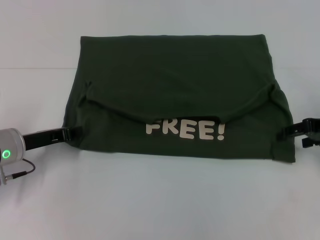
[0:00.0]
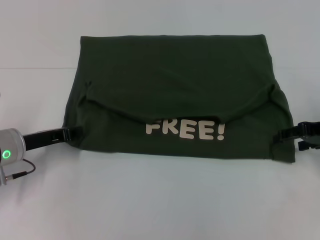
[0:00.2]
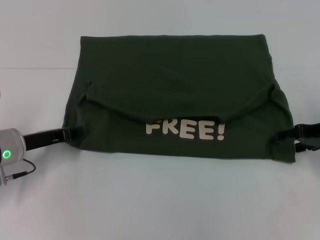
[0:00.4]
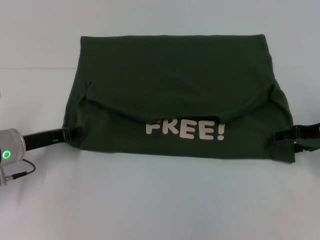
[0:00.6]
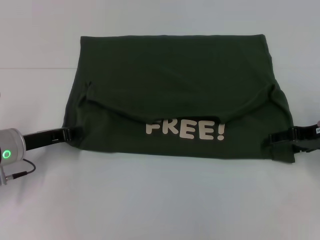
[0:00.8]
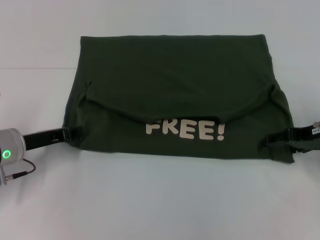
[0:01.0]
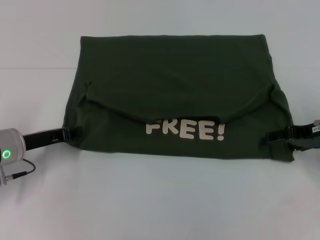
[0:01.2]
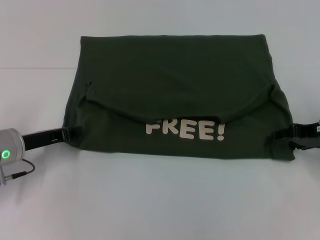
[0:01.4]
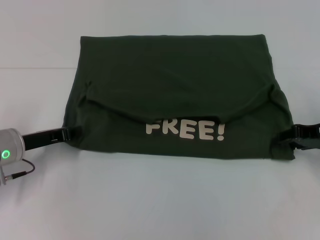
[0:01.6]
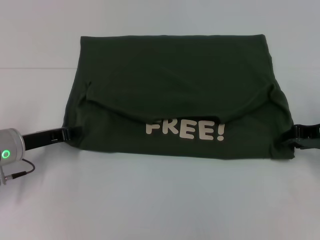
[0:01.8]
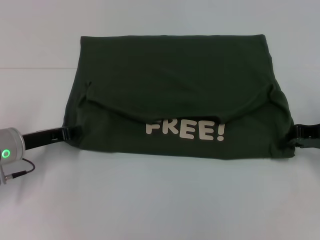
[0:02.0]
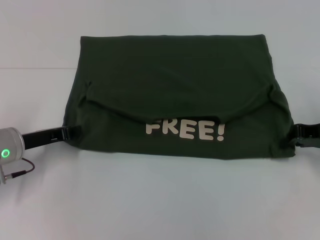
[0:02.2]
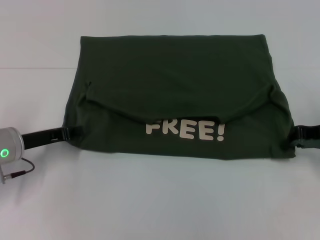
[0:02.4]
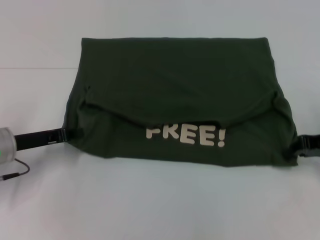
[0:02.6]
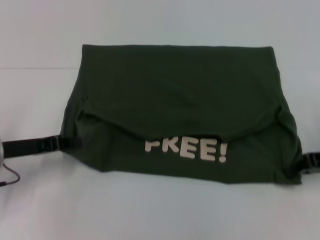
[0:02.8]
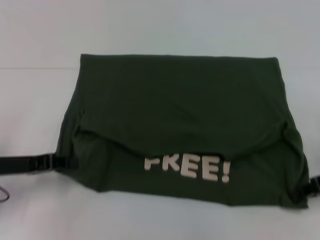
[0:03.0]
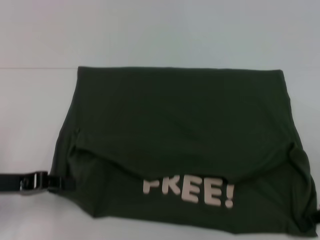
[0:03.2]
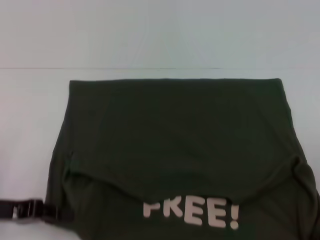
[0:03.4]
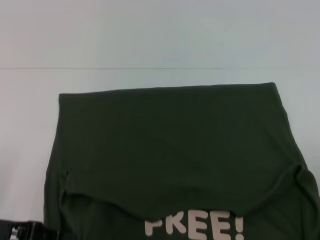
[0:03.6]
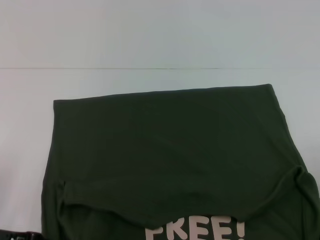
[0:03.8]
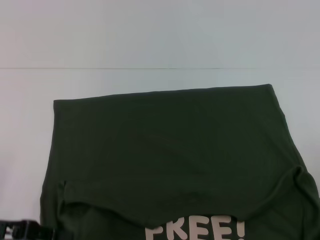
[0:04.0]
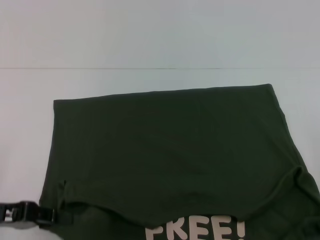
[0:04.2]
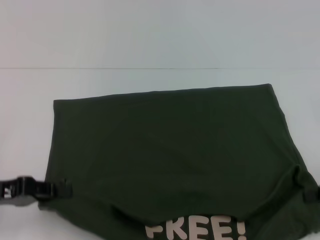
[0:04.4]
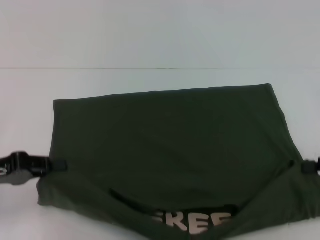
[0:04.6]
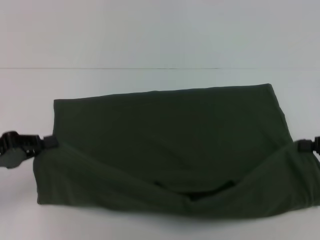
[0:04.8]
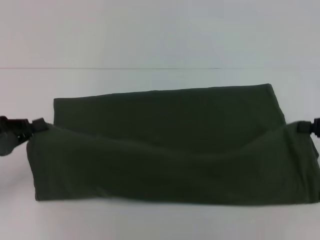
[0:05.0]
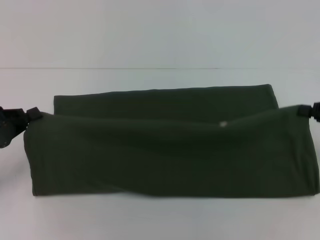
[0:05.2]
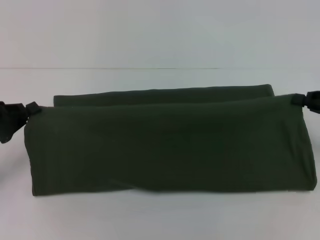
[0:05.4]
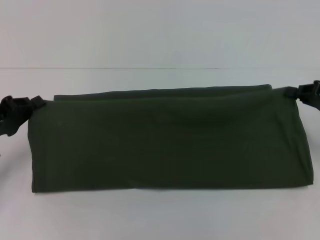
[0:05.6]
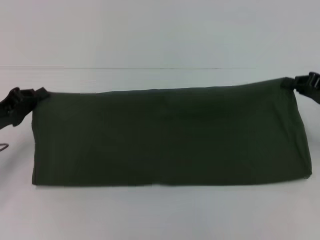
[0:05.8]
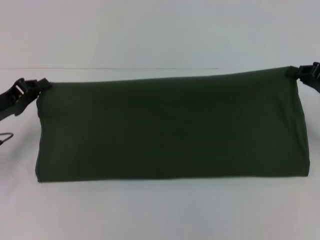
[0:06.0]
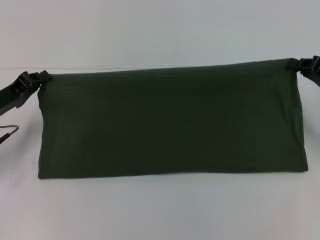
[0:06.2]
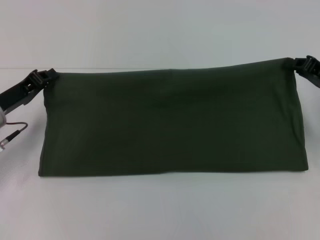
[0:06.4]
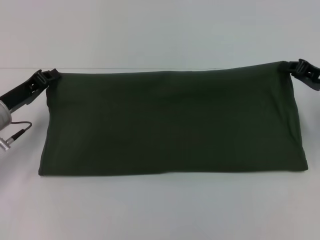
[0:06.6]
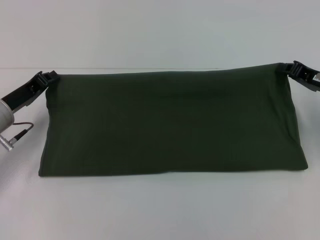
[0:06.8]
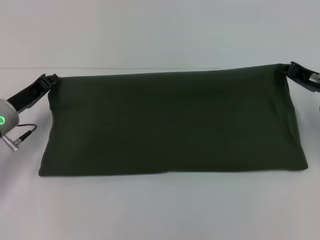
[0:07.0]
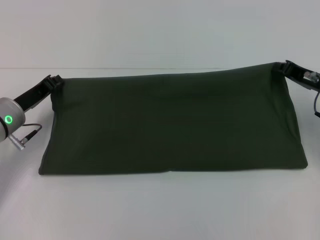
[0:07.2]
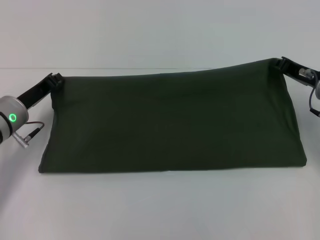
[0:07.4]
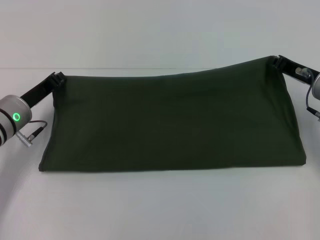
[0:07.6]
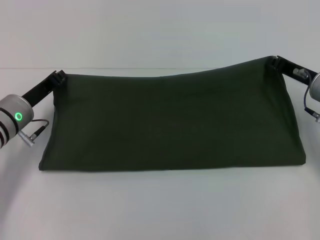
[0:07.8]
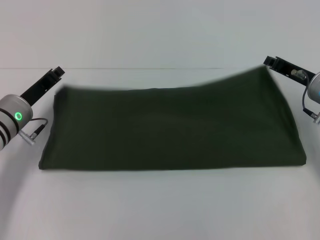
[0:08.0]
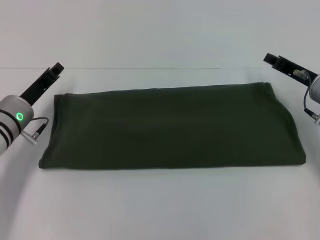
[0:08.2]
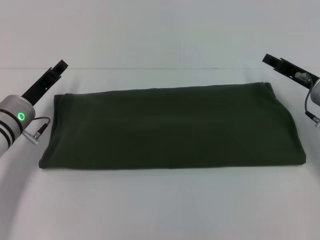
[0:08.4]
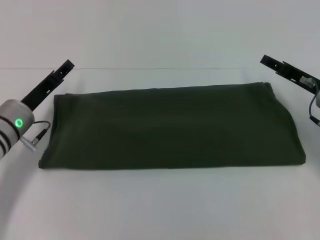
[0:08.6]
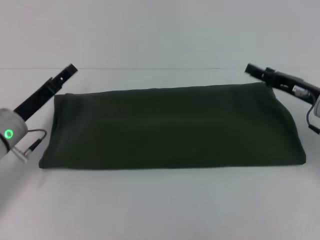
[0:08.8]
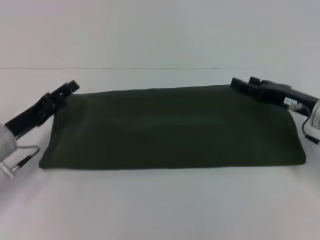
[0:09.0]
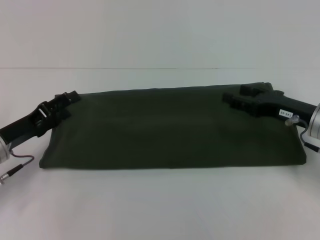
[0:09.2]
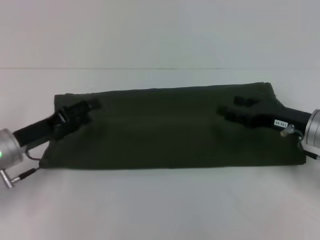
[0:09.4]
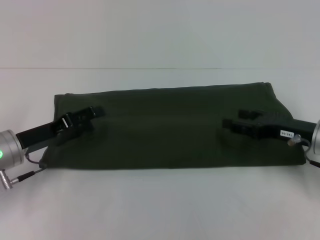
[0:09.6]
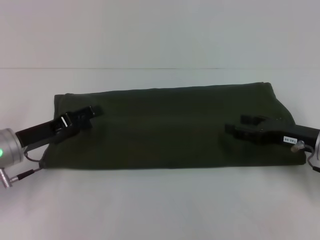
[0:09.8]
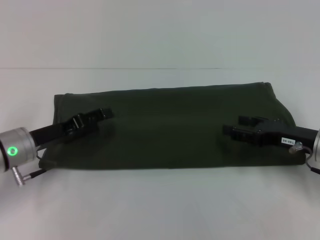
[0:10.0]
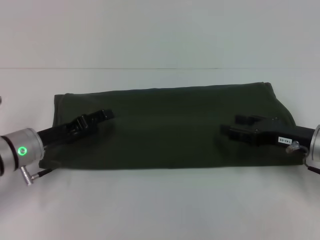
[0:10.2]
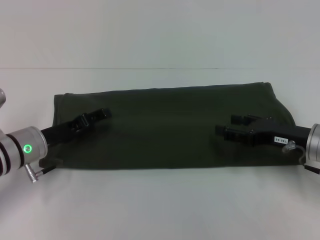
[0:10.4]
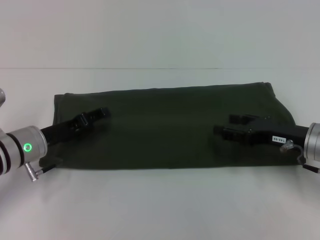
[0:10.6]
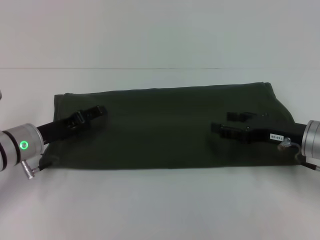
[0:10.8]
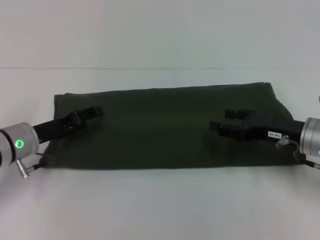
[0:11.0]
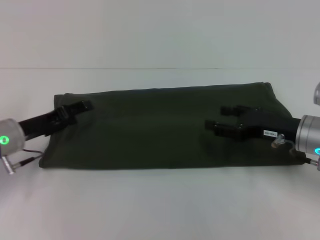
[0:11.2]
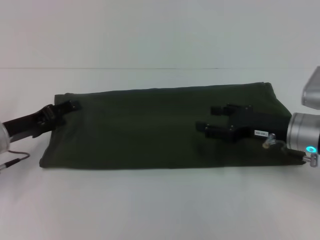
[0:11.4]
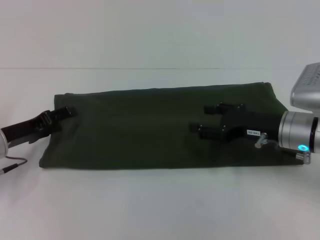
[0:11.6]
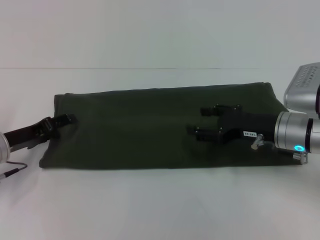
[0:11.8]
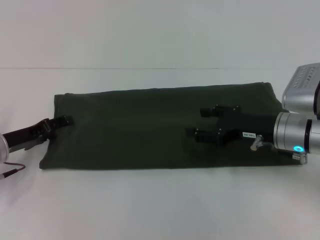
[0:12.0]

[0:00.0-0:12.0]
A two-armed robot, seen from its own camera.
Step, 0:00.0 to 0:03.8: Pull the clothes with your left hand.
Step, 0:00.0 to 0:03.8: Pull the clothes with your right hand.
Step, 0:04.0 to 0:08.0: Fold the clothes with your right hand.
0:01.6 to 0:03.0: The left gripper moves about 5 cm. Meanwhile the right gripper is displaced backward by about 5 cm, and closes its fingers.
0:03.0 to 0:04.4: The right gripper shifts by approximately 5 cm. The left gripper heads backward, covering about 5 cm.
0:04.4 to 0:06.0: The grippers both shift forward by approximately 10 cm.
0:06.0 to 0:07.6: The right gripper goes about 5 cm to the left. The left gripper goes roughly 5 cm to the right.
0:07.6 to 0:09.0: The left gripper ends up about 5 cm from where it was, and opens. Meanwhile the right gripper opens its fingers.
0:09.0 to 0:10.4: The grippers move only a little.
0:10.4 to 0:12.0: The left gripper moves to the left, approximately 5 cm; the right gripper ends up approximately 5 cm from where it was.

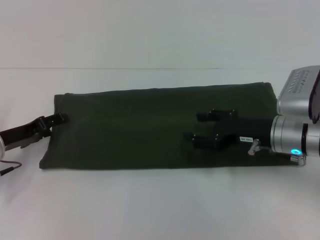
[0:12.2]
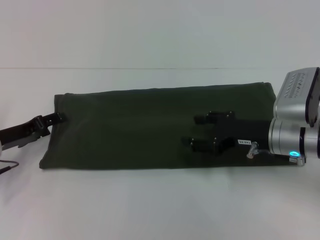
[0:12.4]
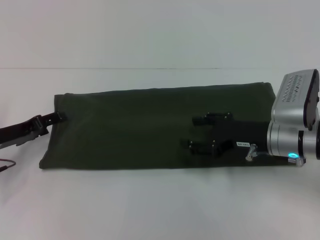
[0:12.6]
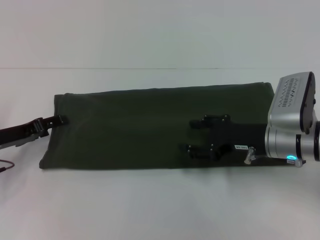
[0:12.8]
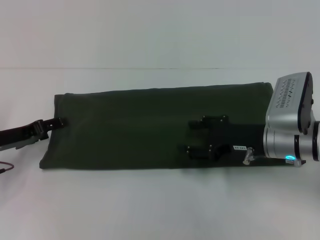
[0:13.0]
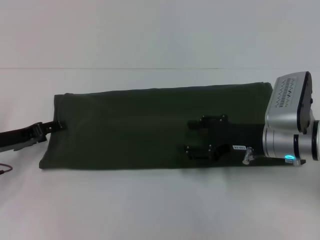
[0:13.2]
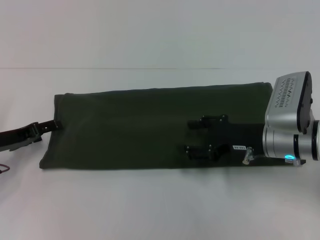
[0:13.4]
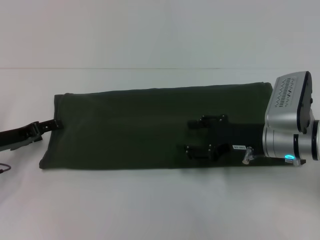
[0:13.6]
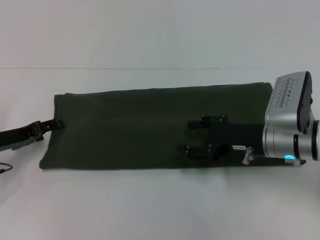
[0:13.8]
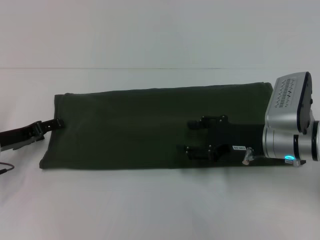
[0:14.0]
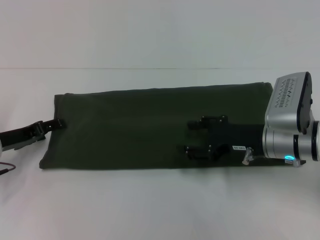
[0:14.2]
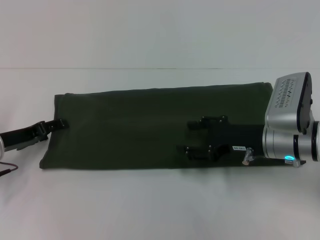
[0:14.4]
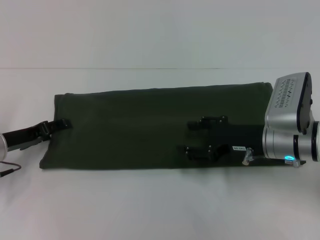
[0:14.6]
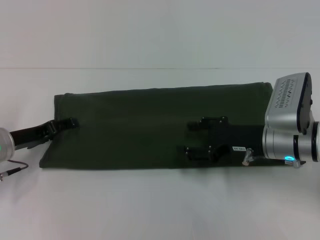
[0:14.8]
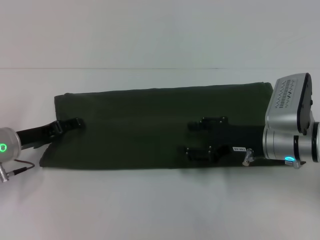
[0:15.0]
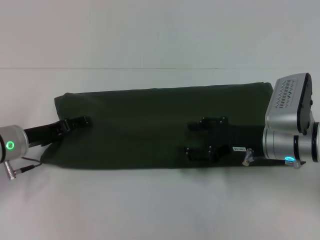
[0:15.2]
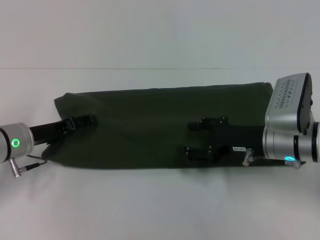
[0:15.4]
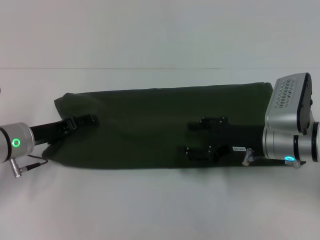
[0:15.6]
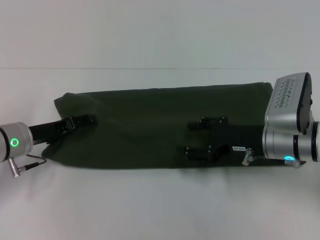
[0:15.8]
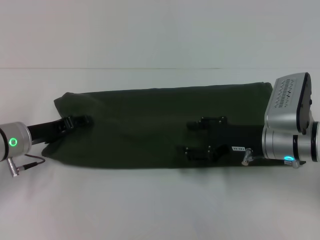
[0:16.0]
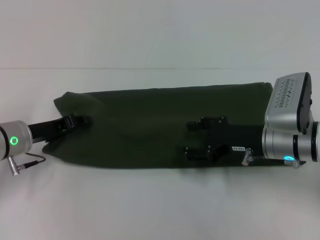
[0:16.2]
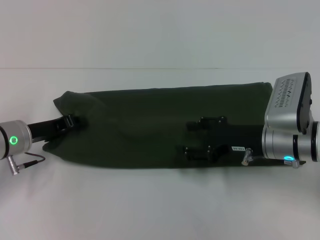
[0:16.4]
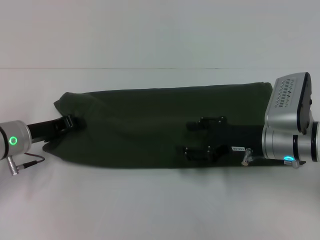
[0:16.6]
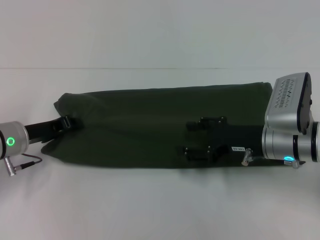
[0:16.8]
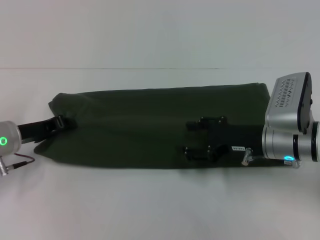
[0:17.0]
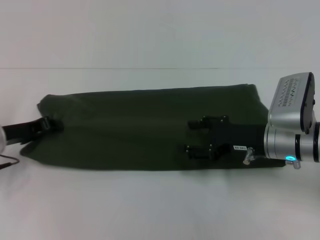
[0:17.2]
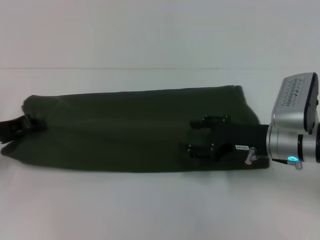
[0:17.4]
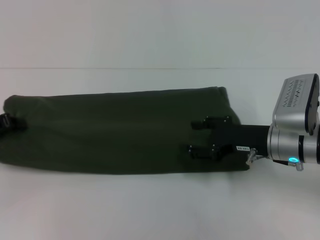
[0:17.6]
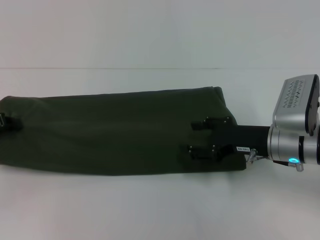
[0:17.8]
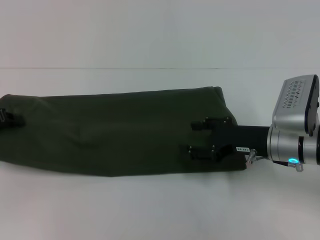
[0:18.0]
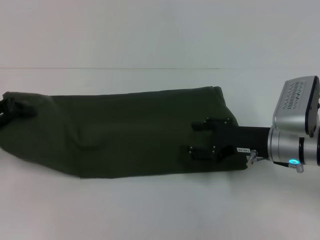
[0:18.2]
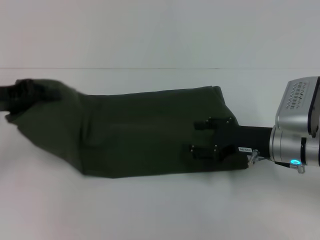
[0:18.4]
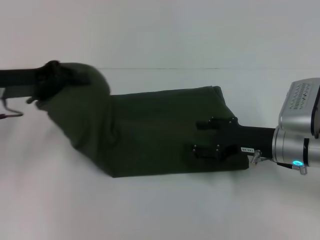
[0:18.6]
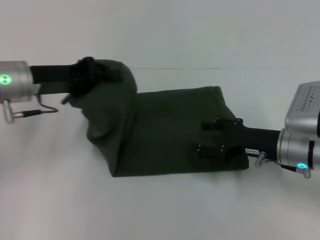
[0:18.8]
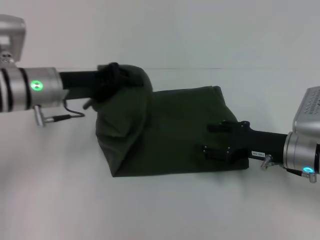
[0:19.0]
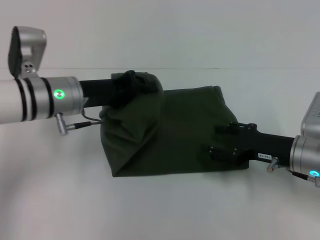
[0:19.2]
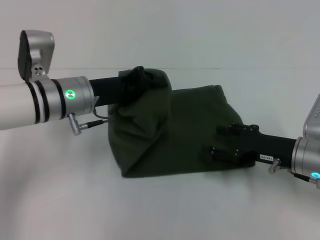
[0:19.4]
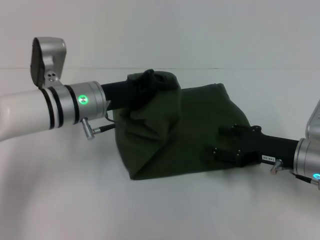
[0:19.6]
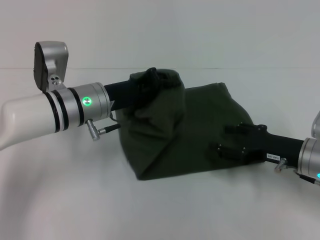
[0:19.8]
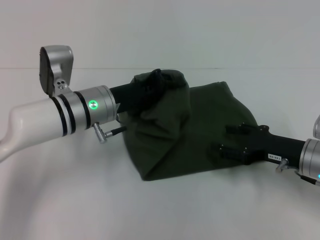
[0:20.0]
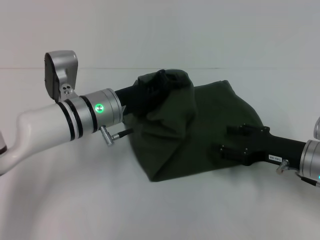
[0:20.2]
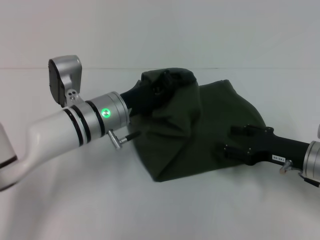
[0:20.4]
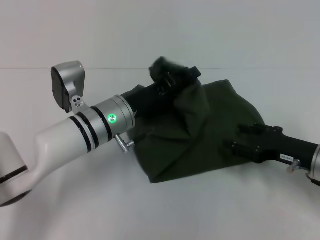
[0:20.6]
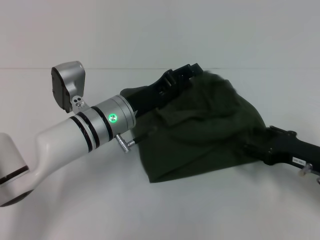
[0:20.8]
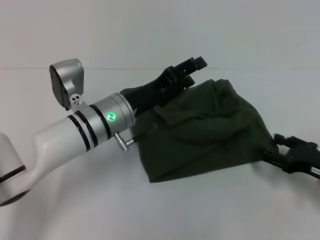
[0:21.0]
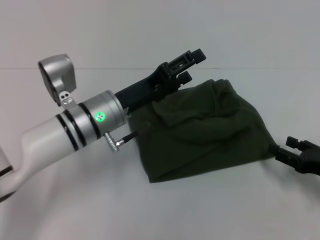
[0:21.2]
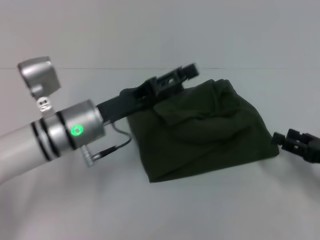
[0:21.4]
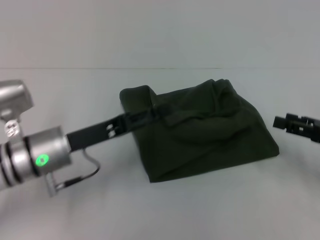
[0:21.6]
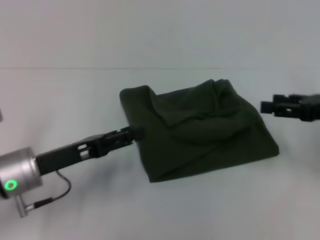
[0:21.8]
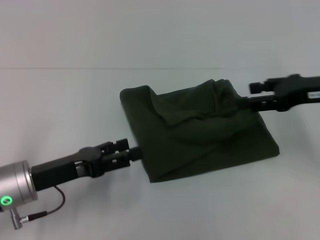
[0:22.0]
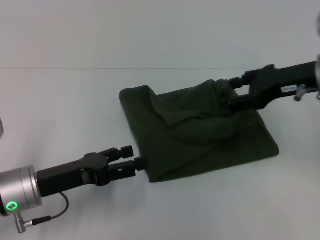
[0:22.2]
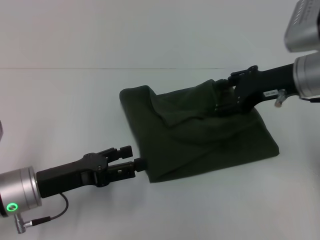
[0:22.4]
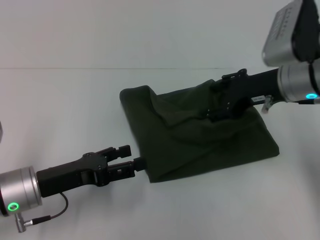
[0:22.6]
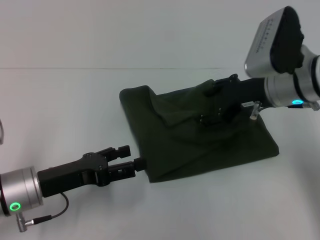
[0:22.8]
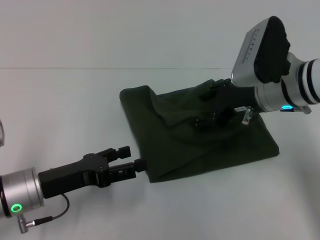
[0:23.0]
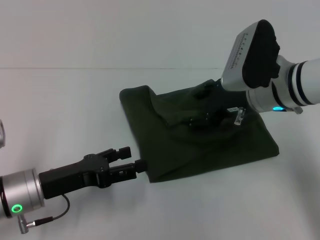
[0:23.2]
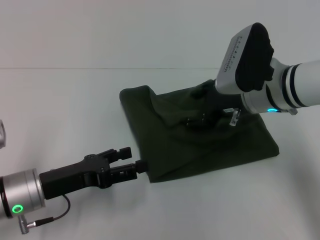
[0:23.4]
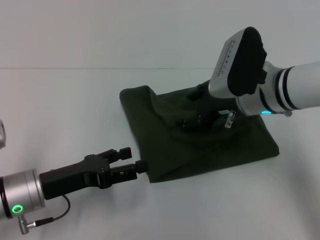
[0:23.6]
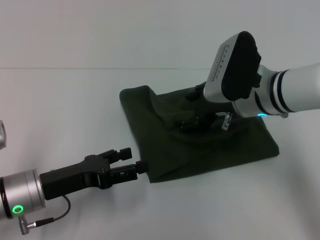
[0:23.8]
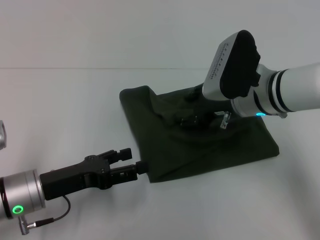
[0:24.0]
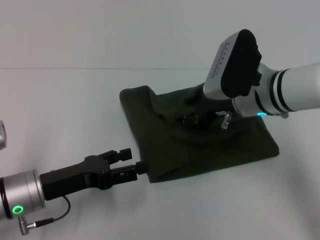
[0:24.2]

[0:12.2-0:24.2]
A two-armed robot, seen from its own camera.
Step, 0:12.2 to 0:20.8: Fold the clothes with your left hand.
0:12.2 to 0:15.2: The grippers stay close to where they were, moving slightly.
0:15.2 to 0:16.6: The left gripper closes.
0:16.6 to 0:18.2: The left gripper moves to the left and upward, approximately 10 cm.
0:18.2 to 0:19.8: The left gripper travels to the right by some 20 cm. The right gripper ends up about 5 cm from where it was.
0:19.8 to 0:21.2: The right gripper is displaced to the right and backward by approximately 10 cm, while the left gripper opens up.
0:21.2 to 0:22.6: The right gripper goes approximately 25 cm upward, to the left and forward. Meanwhile the left gripper heads to the left and backward, covering some 15 cm.
0:22.6 to 0:24.2: The right gripper shifts some 5 cm to the left.
